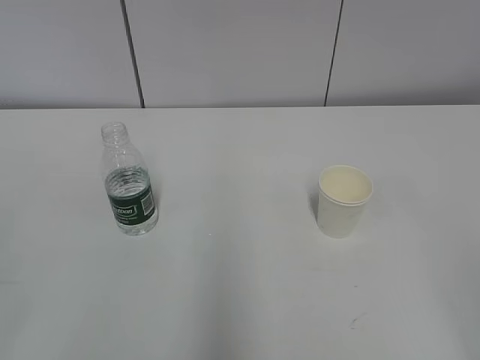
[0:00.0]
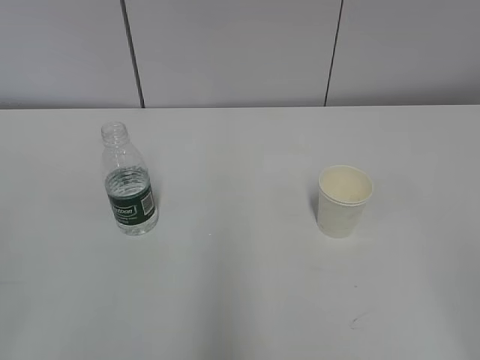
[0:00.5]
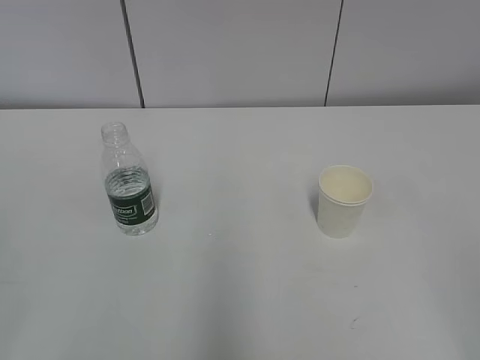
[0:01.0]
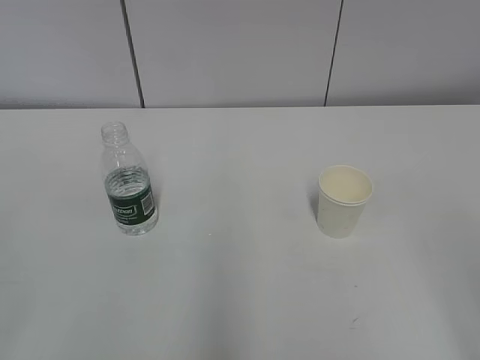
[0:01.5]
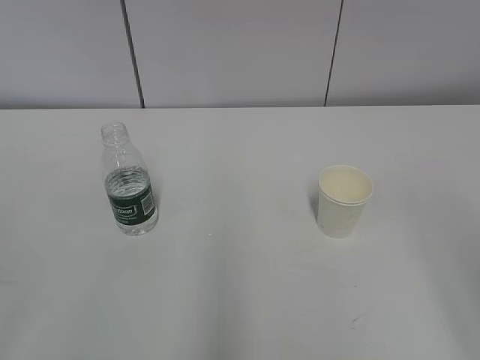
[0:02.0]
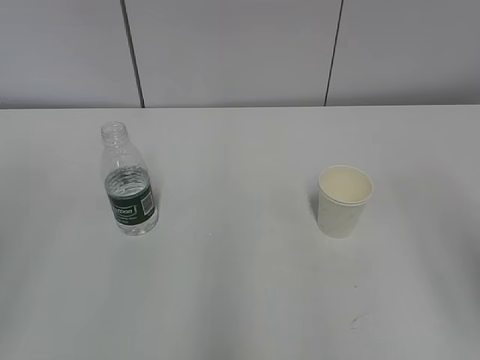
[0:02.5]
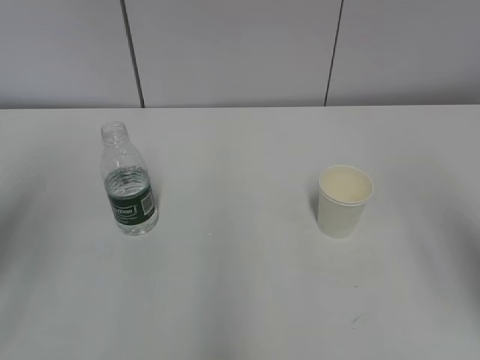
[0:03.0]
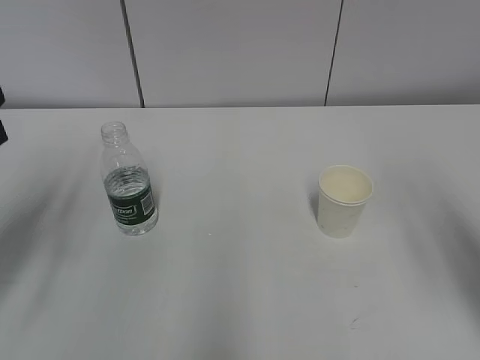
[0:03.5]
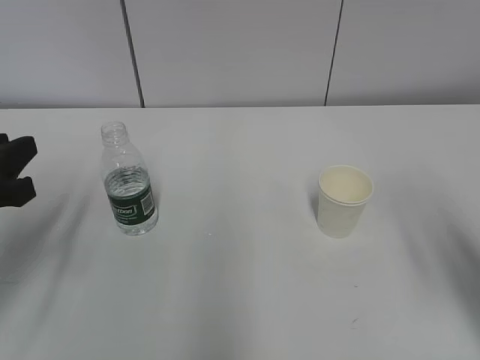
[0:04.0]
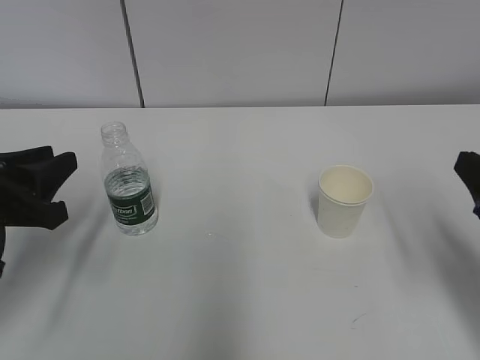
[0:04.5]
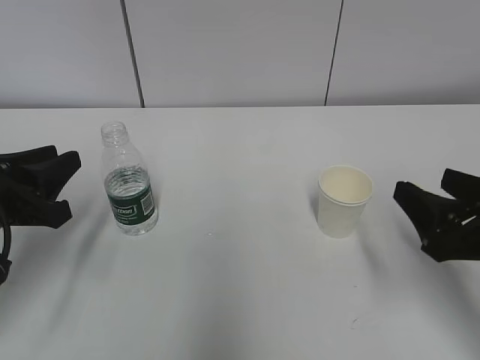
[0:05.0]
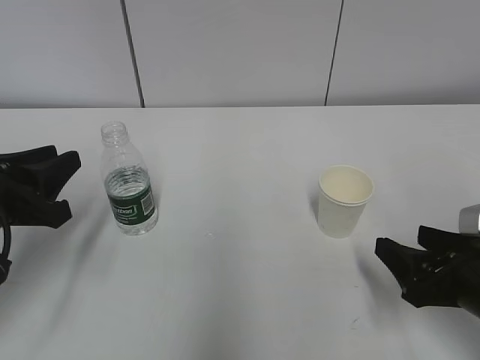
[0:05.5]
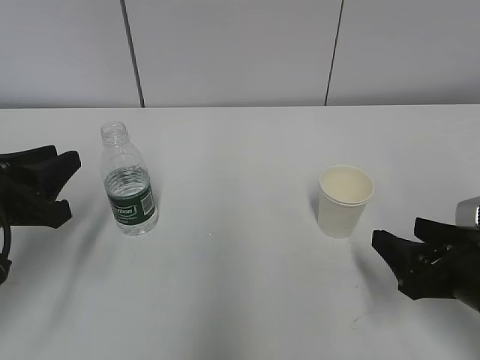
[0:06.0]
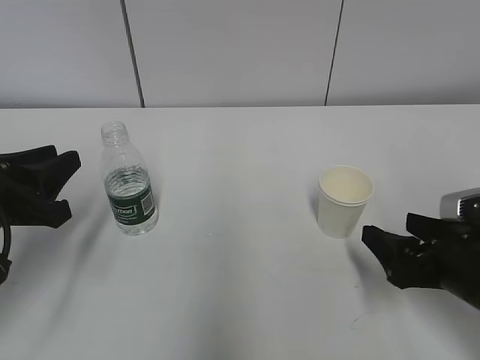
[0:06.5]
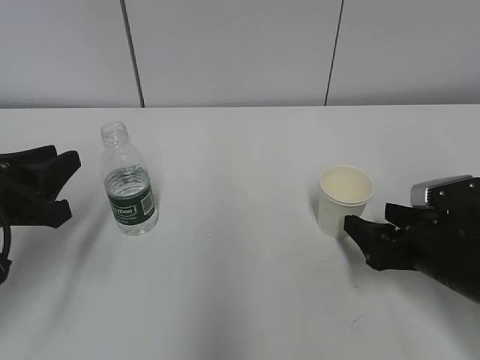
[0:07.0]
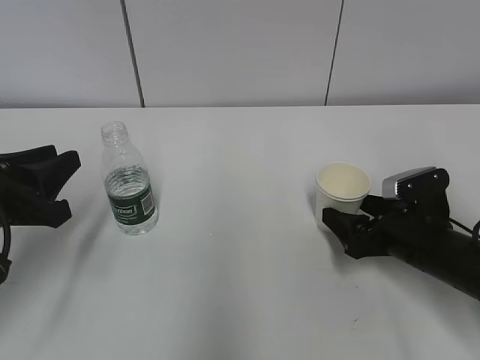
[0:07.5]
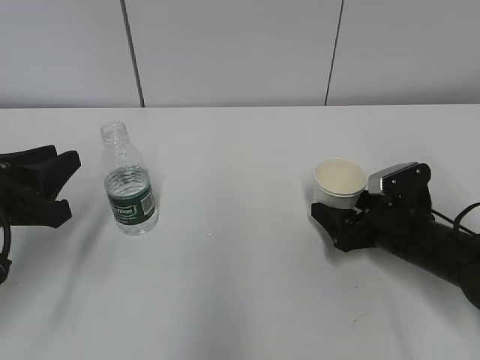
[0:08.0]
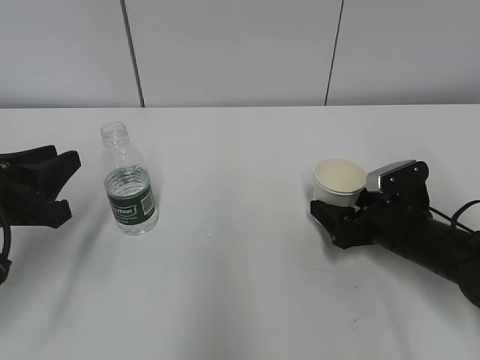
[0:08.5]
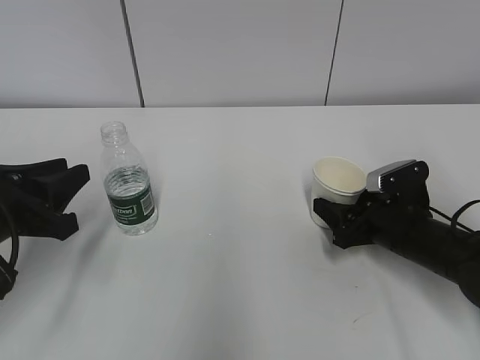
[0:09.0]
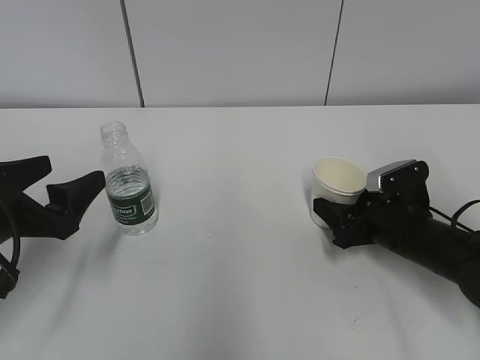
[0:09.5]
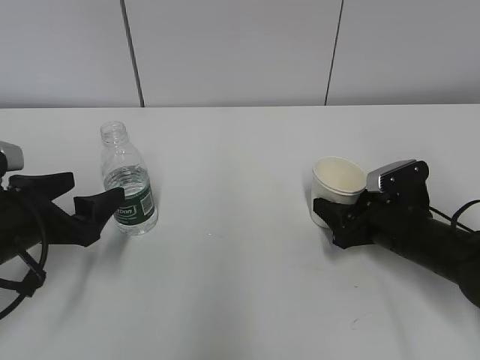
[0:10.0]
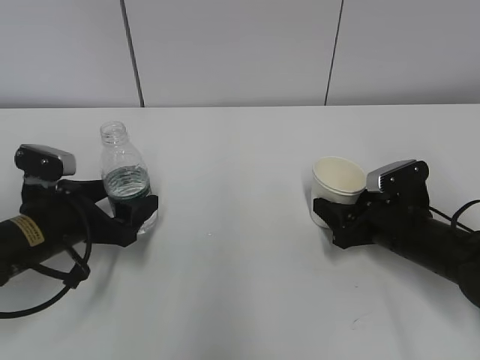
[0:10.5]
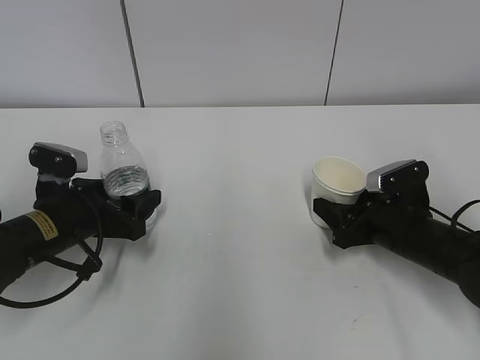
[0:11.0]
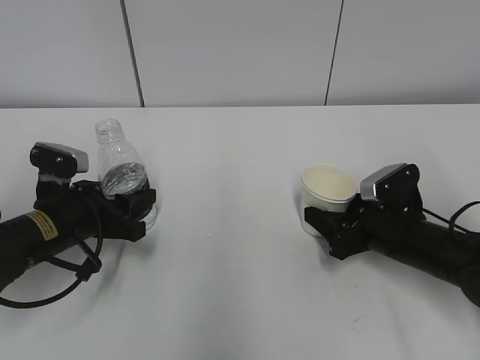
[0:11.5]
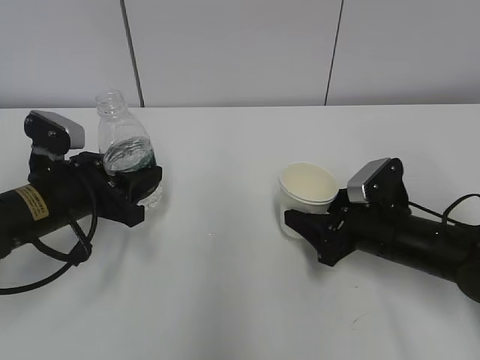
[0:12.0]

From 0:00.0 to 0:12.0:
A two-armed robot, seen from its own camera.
Step, from 0:00.0 to 0:09.5: Grab the paper cup with the right hand.
Step, from 0:00.0 to 0:09.5: Grab the water bottle with the left hand.
From 0:02.0 to 0:04.0: The left gripper is displaced forward by about 20 cm; the right gripper shifts approximately 15 cm forward and downward.
From 0:04.0 to 0:06.0: The right gripper goes roughly 15 cm downward.
From 0:06.0 to 0:08.0: The right gripper travels forward and downward by approximately 15 cm, and opens its fingers.
From 0:08.0 to 0:10.0: The left gripper opens up. The right gripper closes its fingers.
From 0:10.0 to 0:12.0: The left gripper moves some 5 cm, and closes.

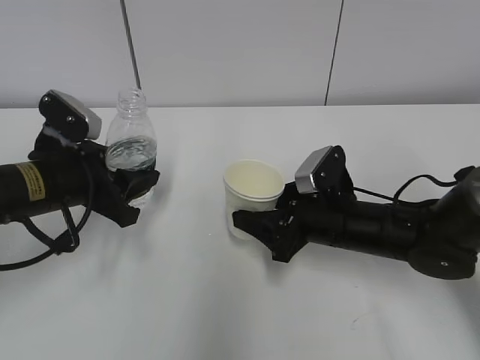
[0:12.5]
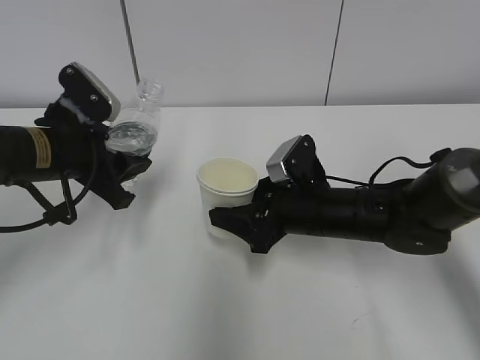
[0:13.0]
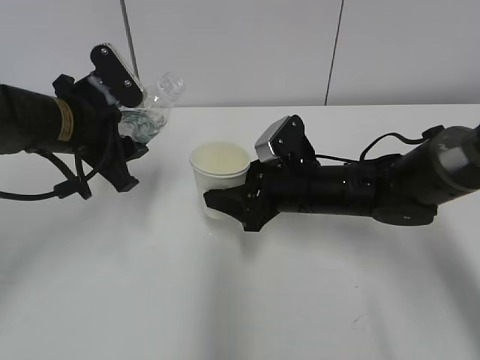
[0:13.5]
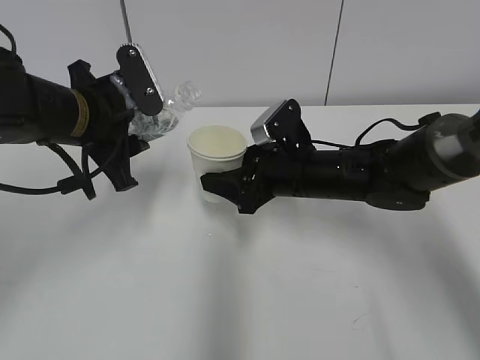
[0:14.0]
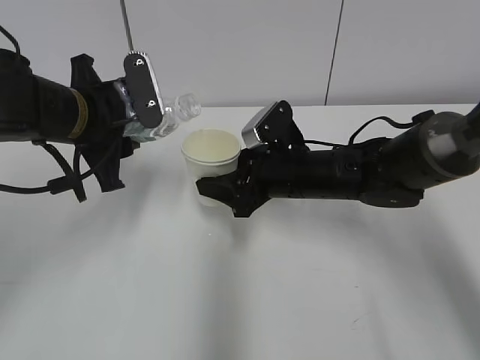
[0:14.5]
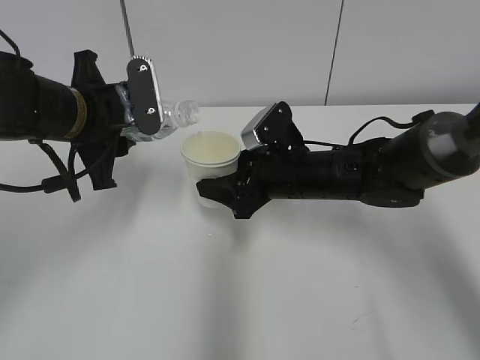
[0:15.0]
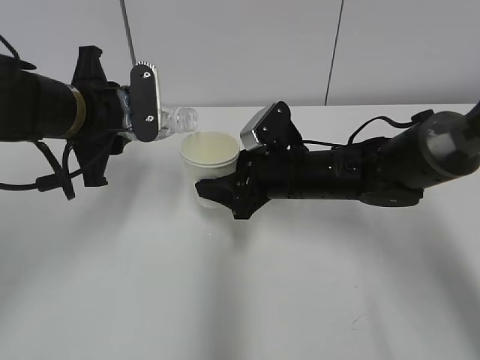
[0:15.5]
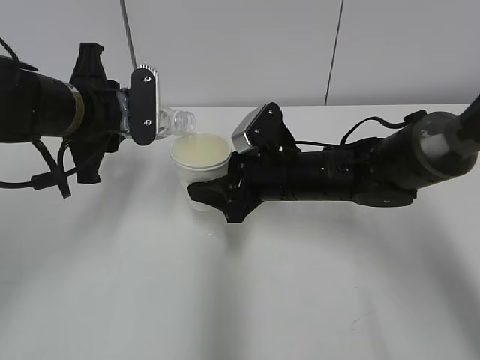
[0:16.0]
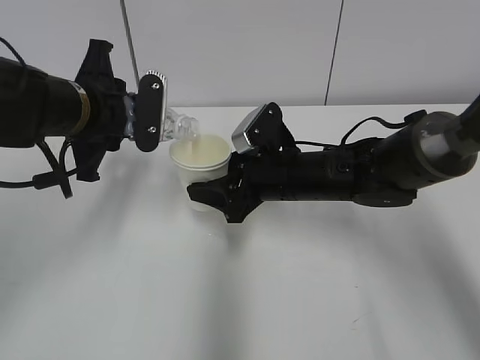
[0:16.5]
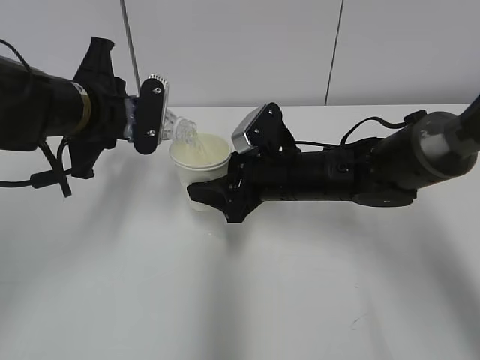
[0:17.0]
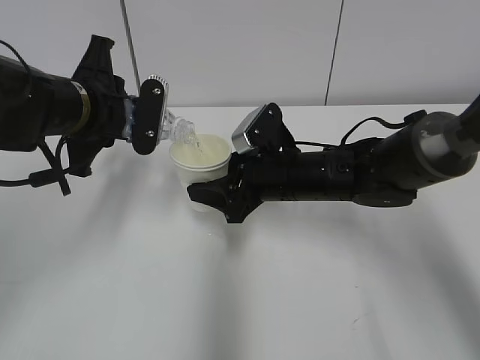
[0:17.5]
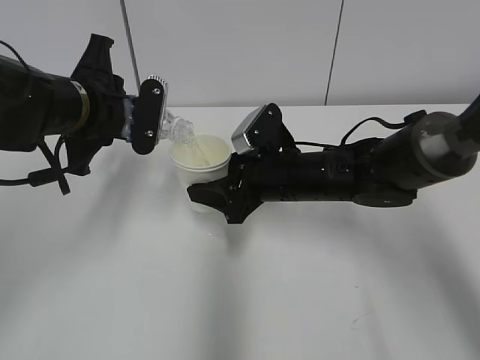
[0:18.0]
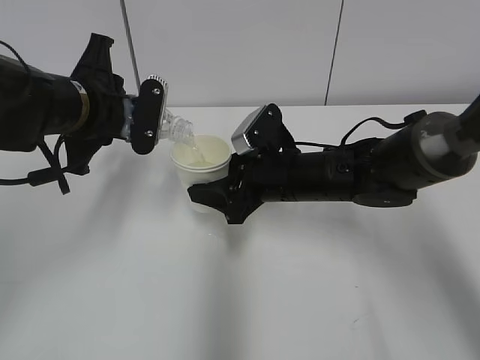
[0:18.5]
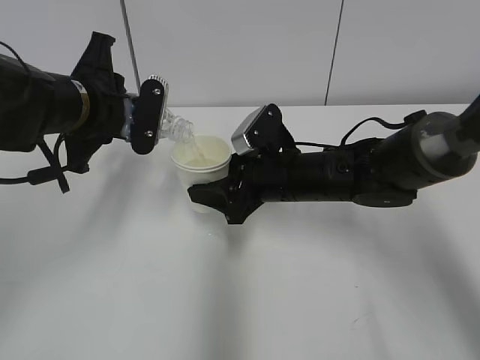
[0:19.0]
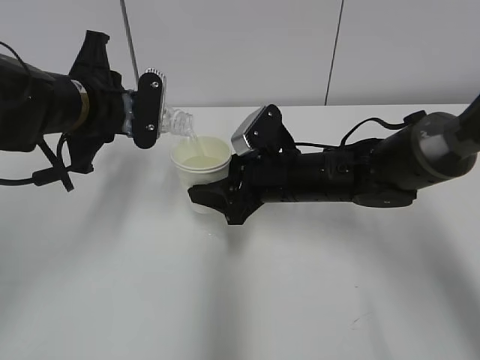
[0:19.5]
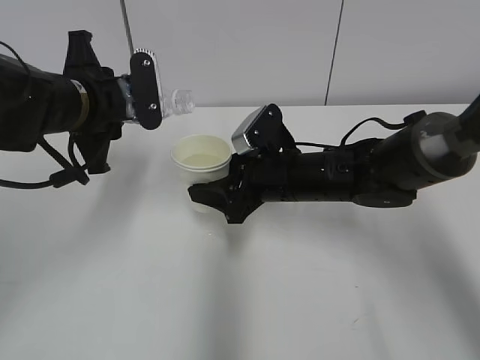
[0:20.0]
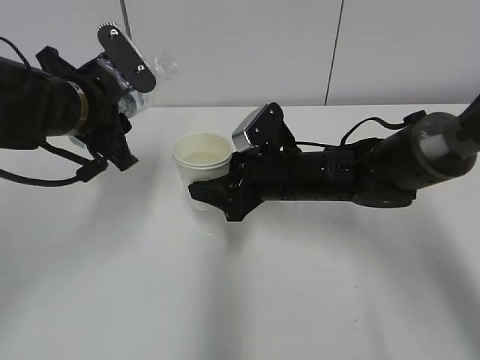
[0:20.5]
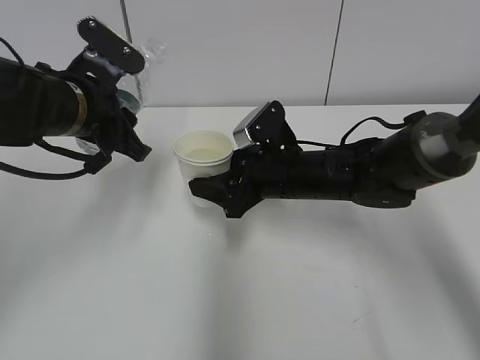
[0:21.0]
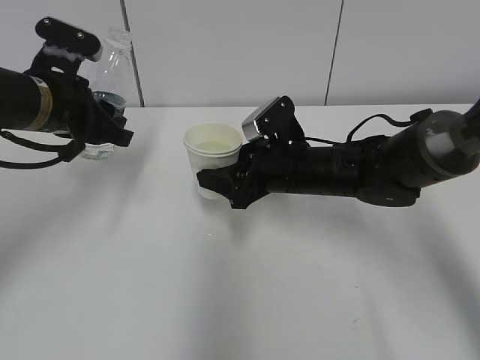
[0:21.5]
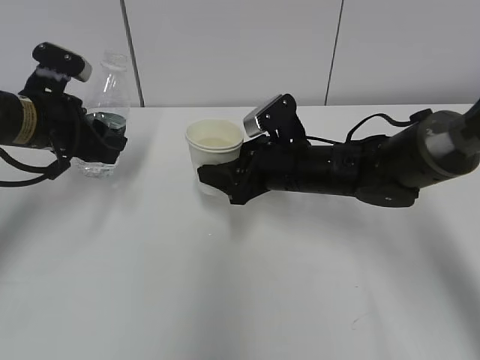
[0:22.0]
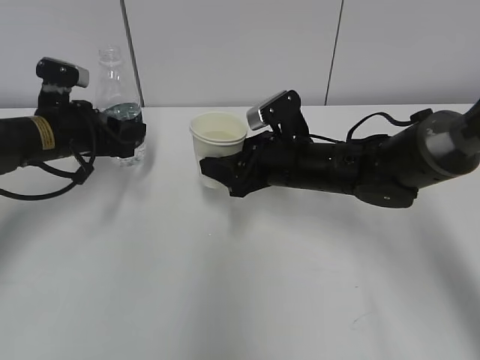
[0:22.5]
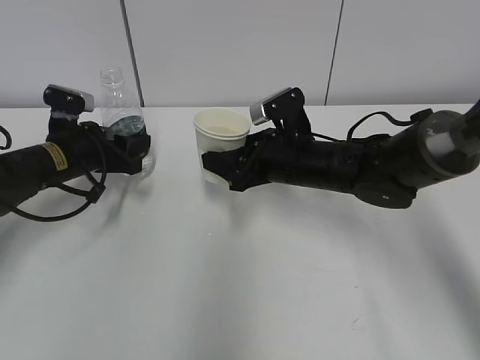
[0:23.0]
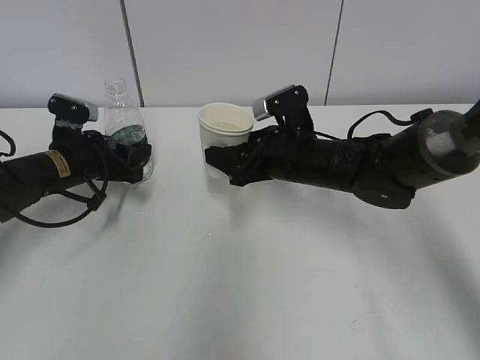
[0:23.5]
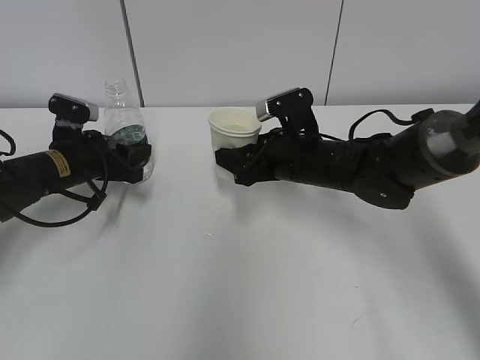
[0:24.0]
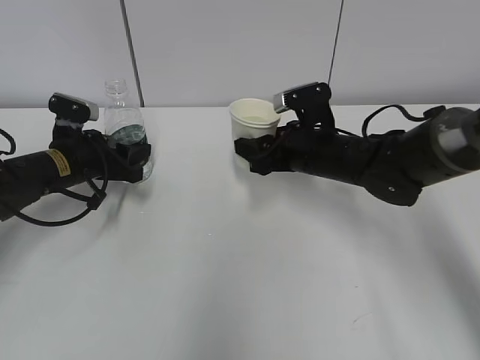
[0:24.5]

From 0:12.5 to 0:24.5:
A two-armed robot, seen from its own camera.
Step, from 0:14.0 to 0:16.5: Fill water with the right hand.
Step, from 0:14.0 to 0:16.5: Pour water with the left hand.
Step, from 0:17.0 to 0:17.5: Collect water with the left hand.
Step, from 0:18.0 to 0:24.0: Place the paper cup with the right hand.
From 0:12.5 to 0:14.5: The left gripper goes about 5 cm upward; the right gripper goes about 5 cm forward.
From 0:16.5 to 0:18.5: The grippers stay close to where they were, moving slightly.
From 0:20.5 to 0:22.5: The left gripper goes roughly 10 cm downward, to the left and forward.
From 0:22.5 to 0:24.5: The left gripper shifts some 5 cm downward.

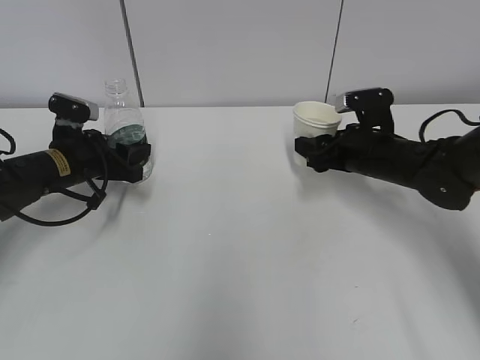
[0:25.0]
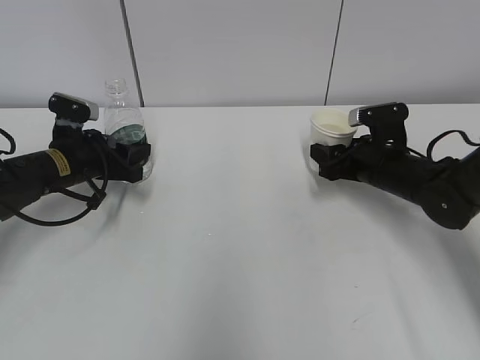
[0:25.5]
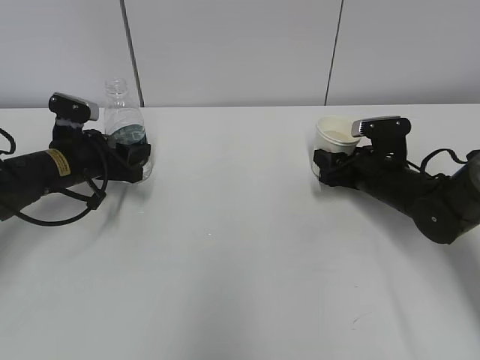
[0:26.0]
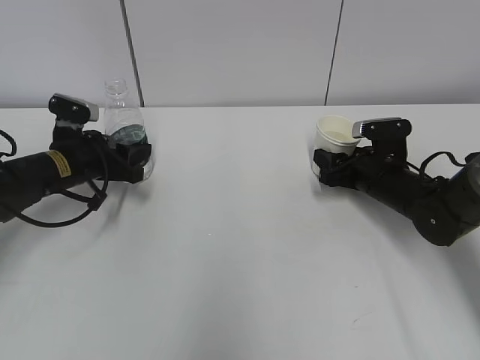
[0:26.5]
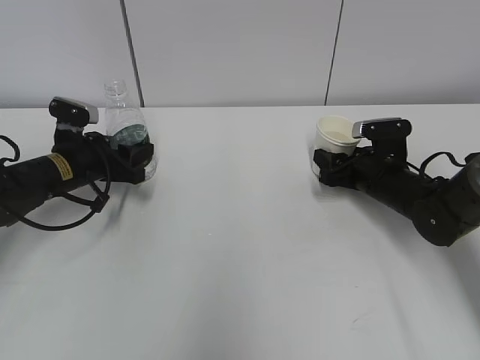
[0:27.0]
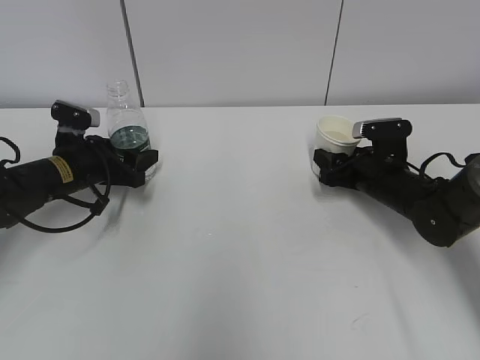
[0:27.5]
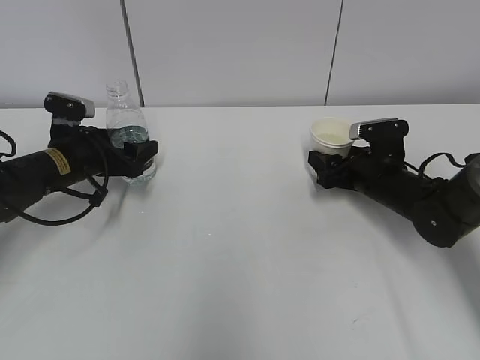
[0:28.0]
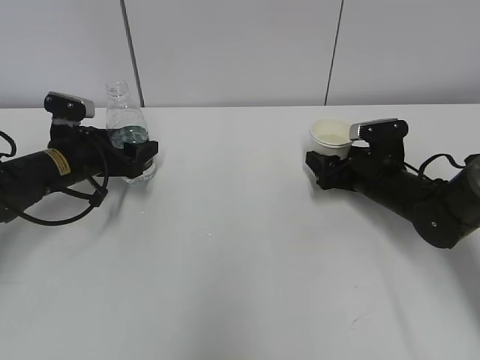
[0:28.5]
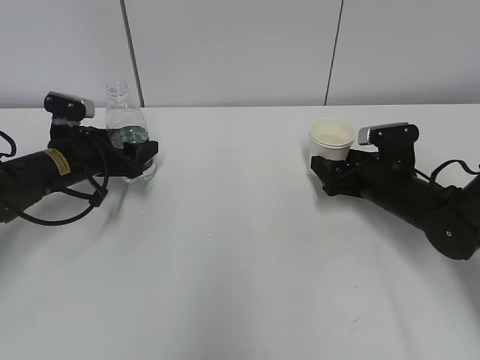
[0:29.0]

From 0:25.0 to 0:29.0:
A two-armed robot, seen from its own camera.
From 0:25.0 to 0:27.0: The right gripper shifts roughly 5 cm downward.
From 0:27.0 to 0:29.0: The right gripper opens; the left gripper opens its fingers.
